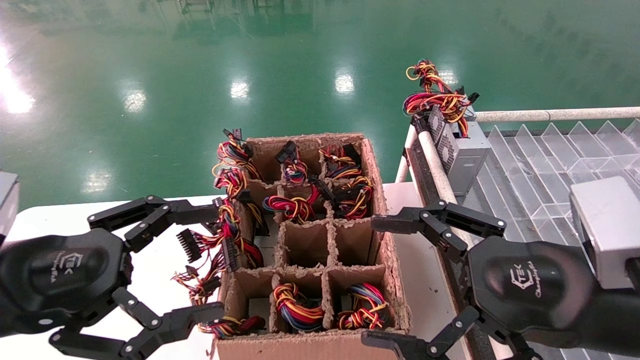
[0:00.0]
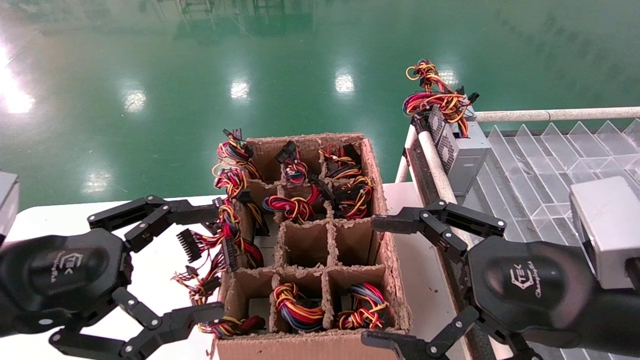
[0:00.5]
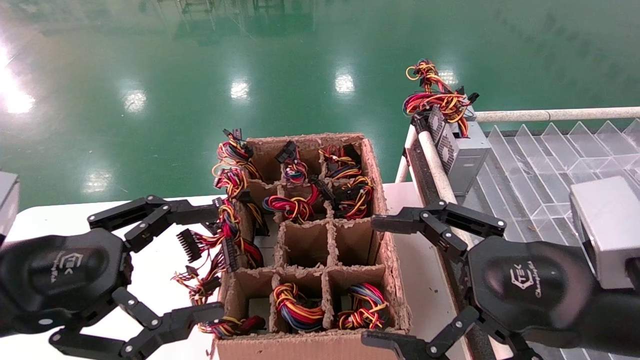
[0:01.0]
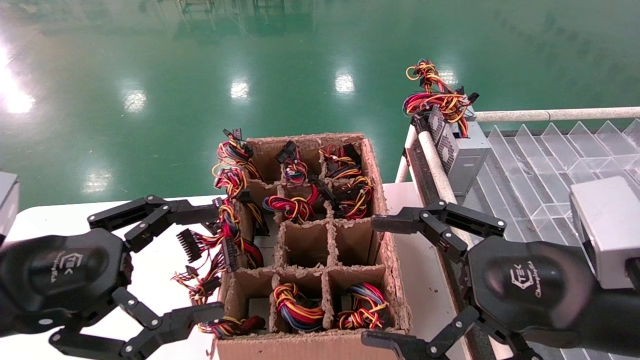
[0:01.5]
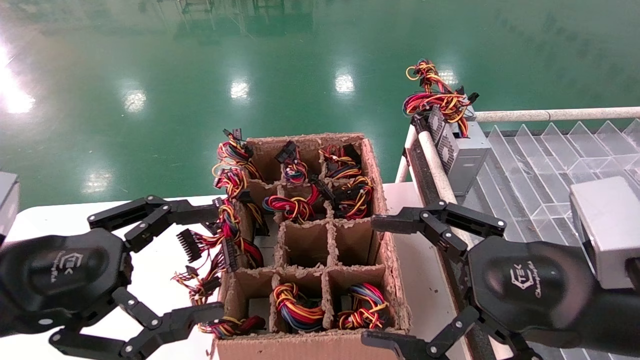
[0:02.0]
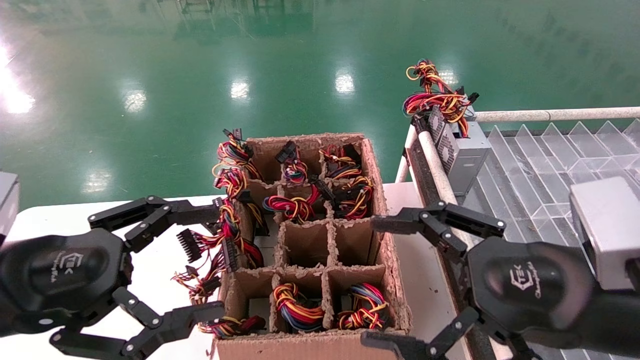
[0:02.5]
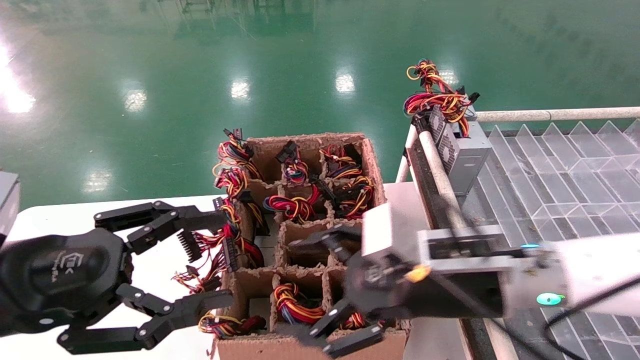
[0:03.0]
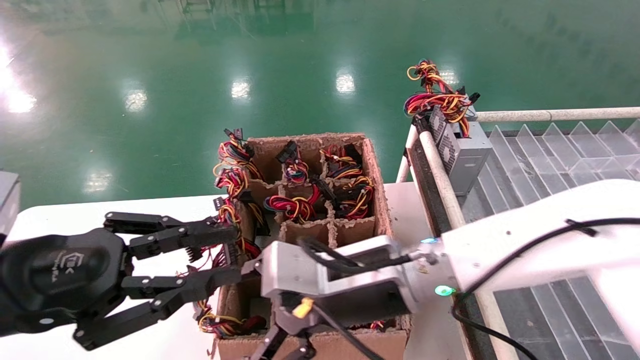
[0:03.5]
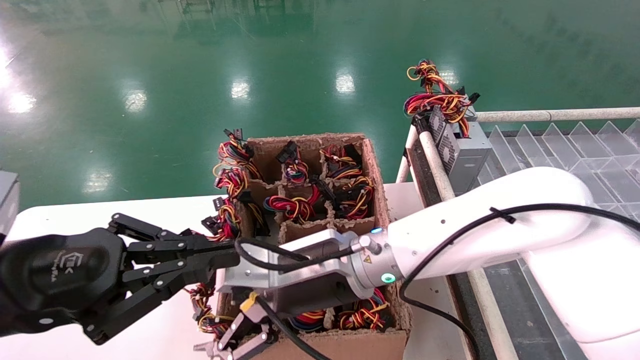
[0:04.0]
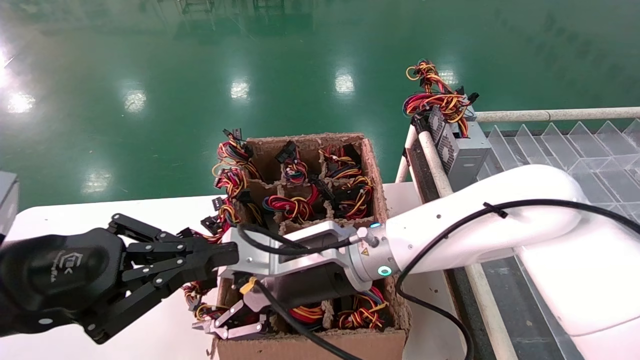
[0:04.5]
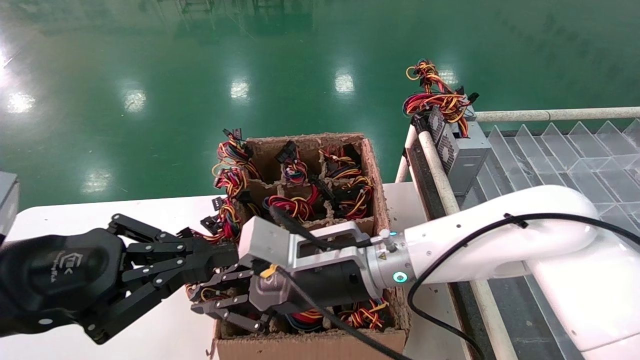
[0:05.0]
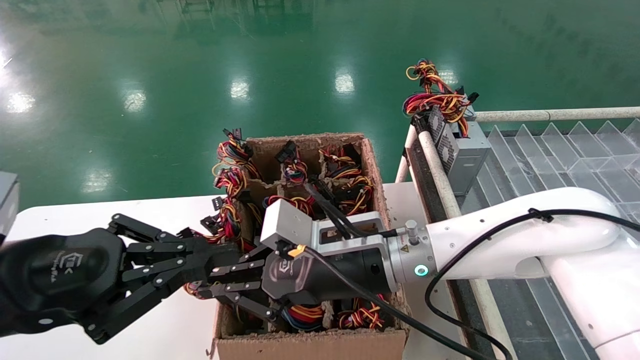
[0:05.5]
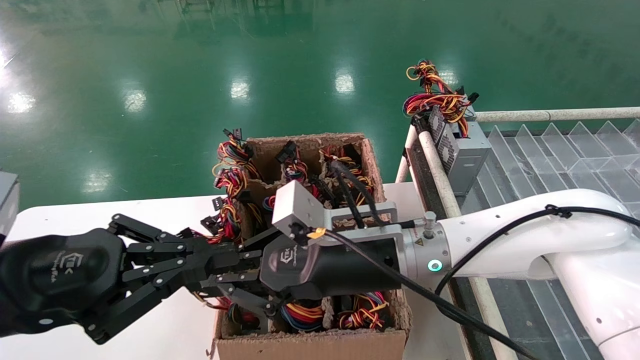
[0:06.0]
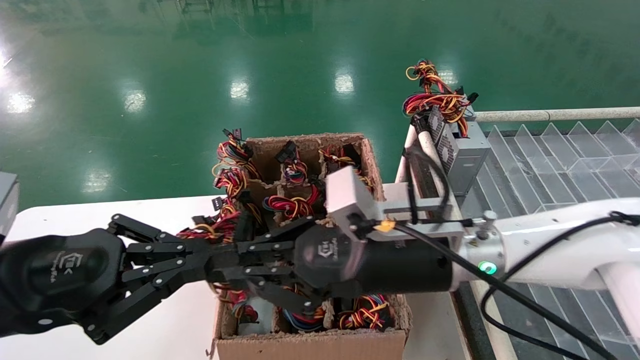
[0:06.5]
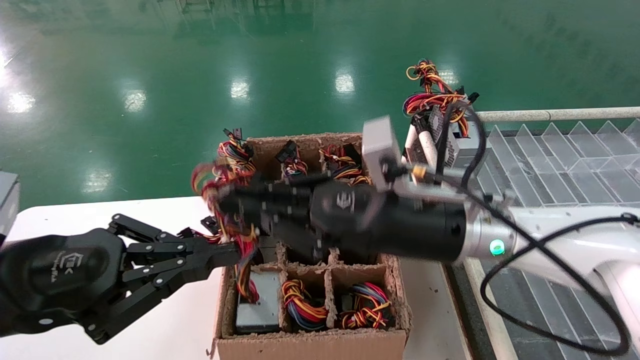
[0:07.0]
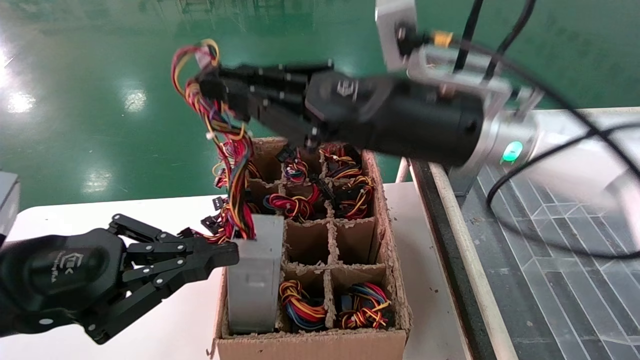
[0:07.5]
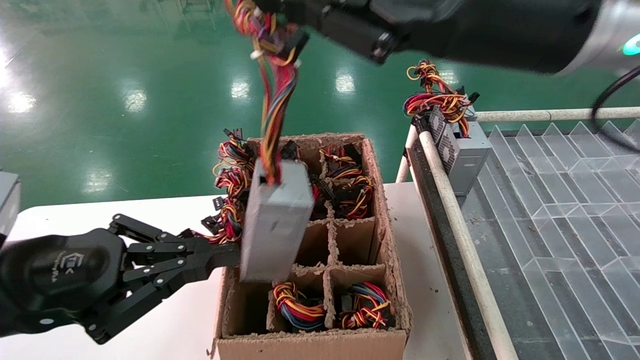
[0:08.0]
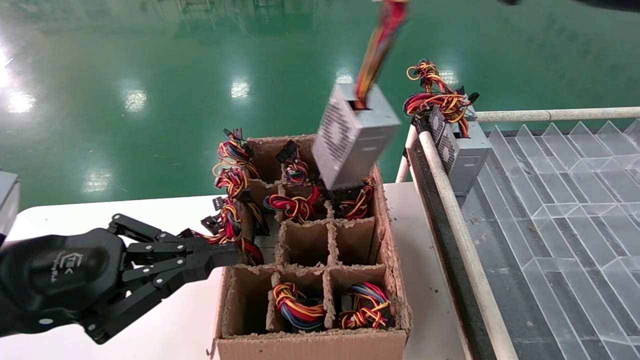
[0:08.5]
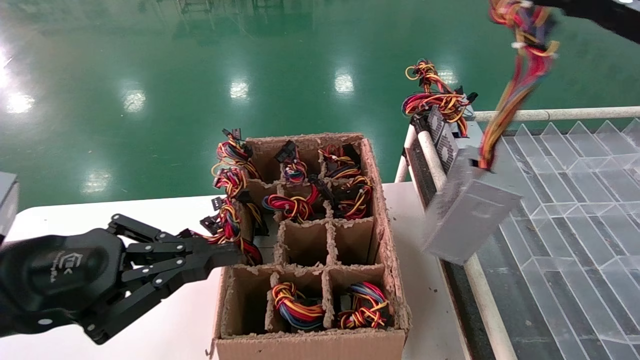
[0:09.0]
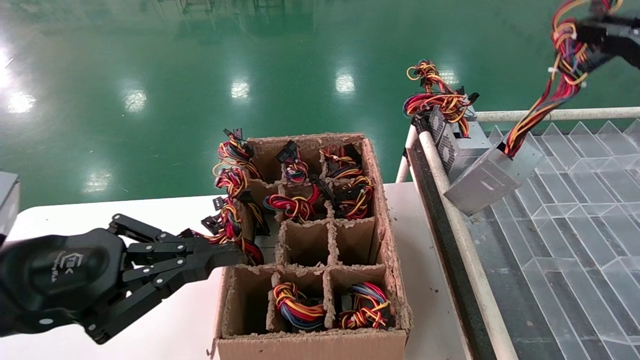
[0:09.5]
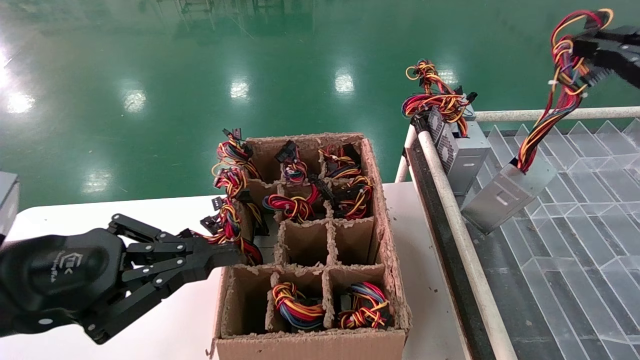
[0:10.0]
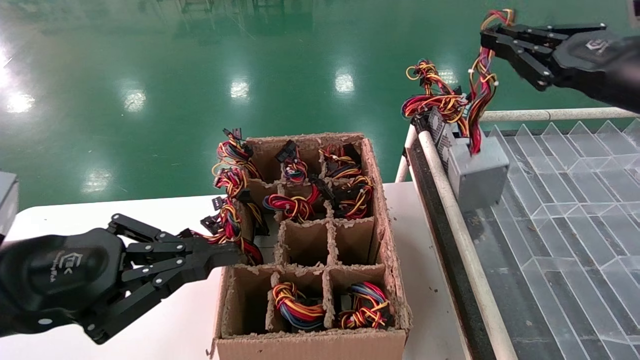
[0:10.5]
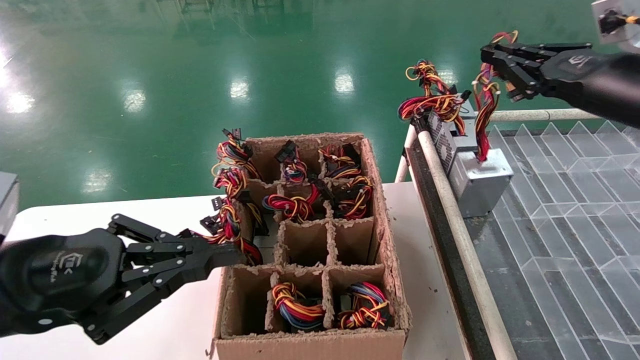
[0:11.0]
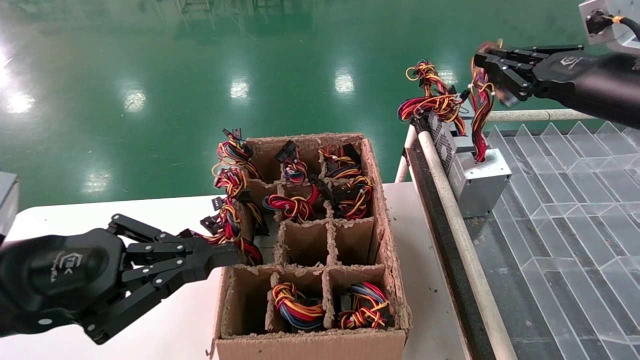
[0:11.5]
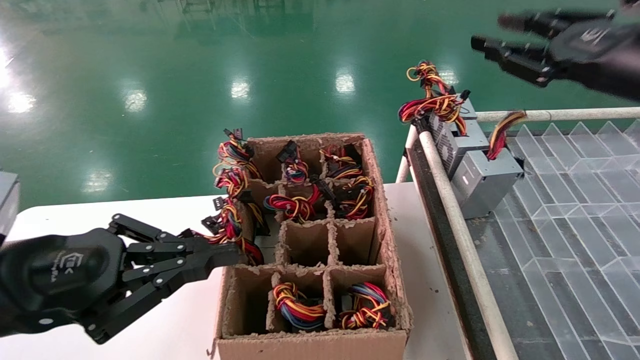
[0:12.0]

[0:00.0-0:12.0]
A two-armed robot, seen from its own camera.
Step, 0:03.0 to 0:05.0: Grab the main unit power supply from the containment box.
Step, 0:05.5 to 0:11.5: Place the main unit power supply in the designated area.
0:00.0 to 0:02.0: The two grippers keep their place.
0:02.0 to 0:04.0: The left gripper closes. Meanwhile the right gripper is displaced to the left and forward by about 25 cm.
0:04.0 to 0:06.0: The right gripper closes its fingers.
0:06.0 to 0:08.0: The right gripper heads upward and to the right, covering roughly 25 cm.
0:08.0 to 0:10.0: The right gripper travels to the right by approximately 25 cm.
0:10.0 to 0:12.0: The right gripper shifts some 10 cm forward and to the left.

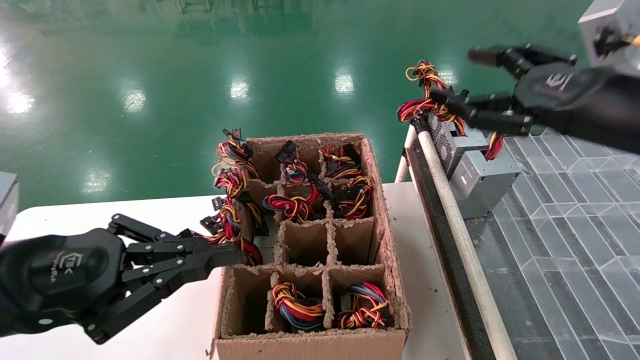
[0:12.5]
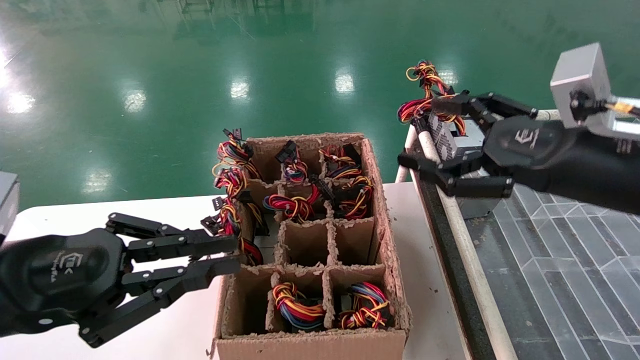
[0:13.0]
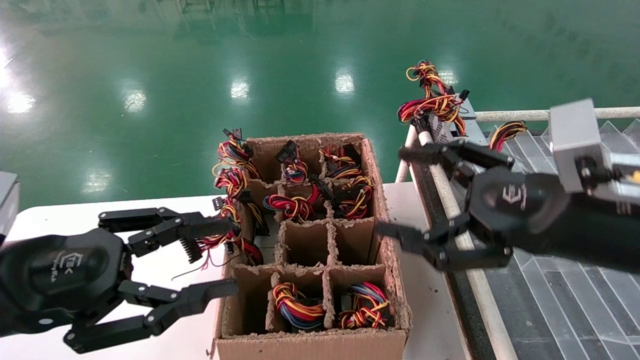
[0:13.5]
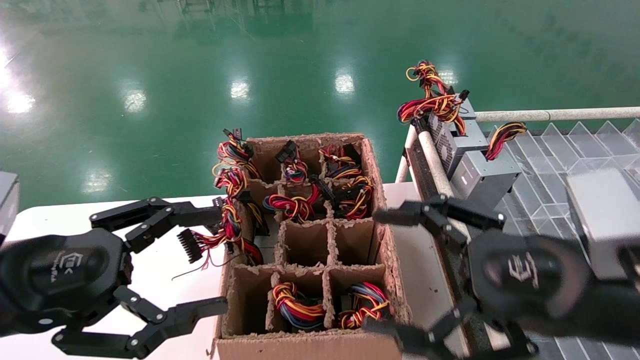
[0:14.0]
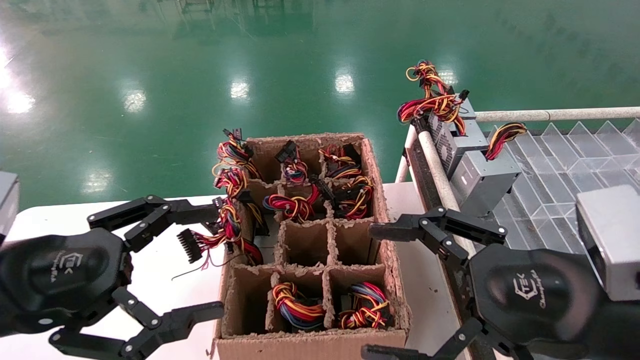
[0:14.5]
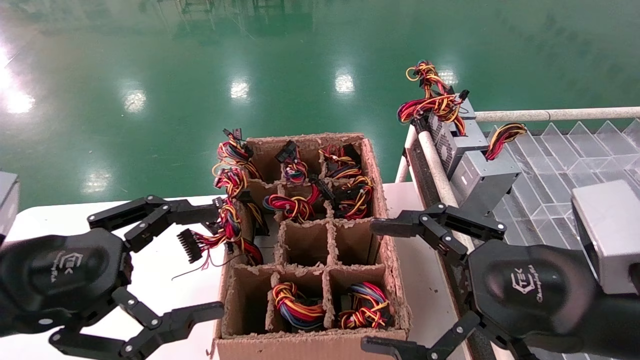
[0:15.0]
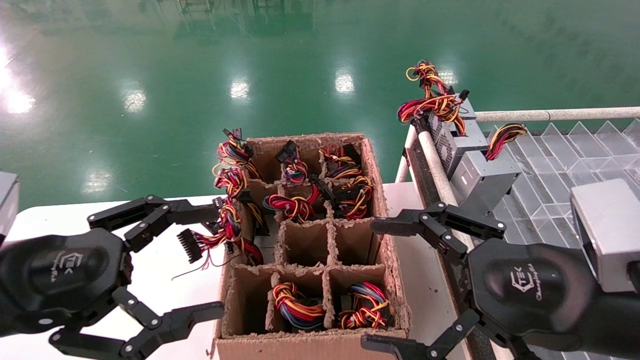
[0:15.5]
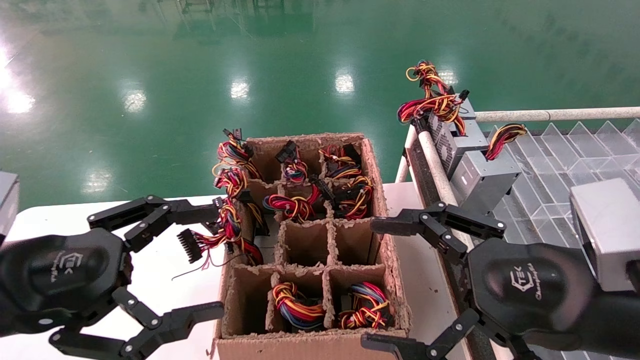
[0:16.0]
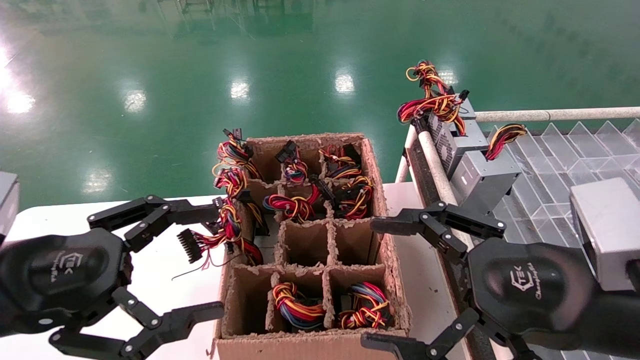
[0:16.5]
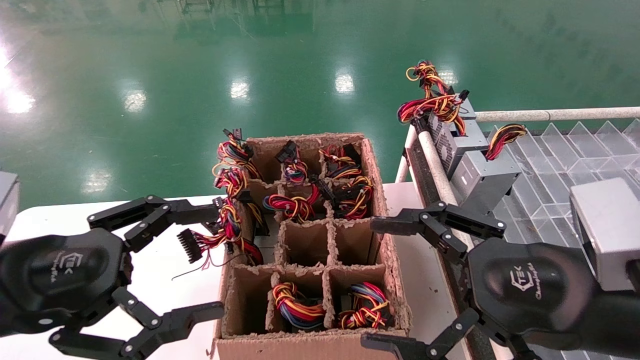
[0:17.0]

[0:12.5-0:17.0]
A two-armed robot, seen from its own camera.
0:12.5 to 0:14.5: The left gripper opens up. Meanwhile the right gripper goes roughly 15 cm downward, backward and to the left.
0:14.5 to 0:17.0: Neither gripper changes place.

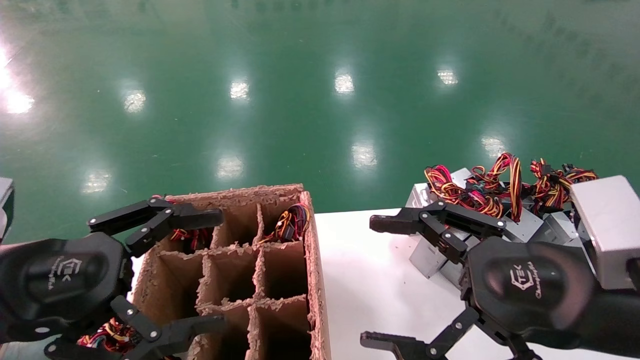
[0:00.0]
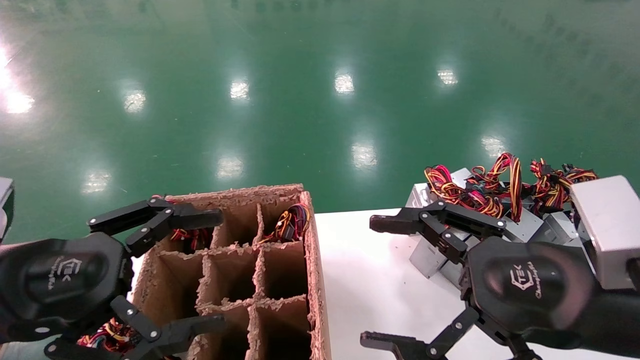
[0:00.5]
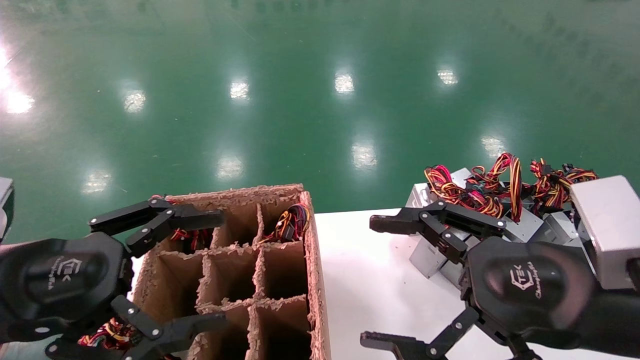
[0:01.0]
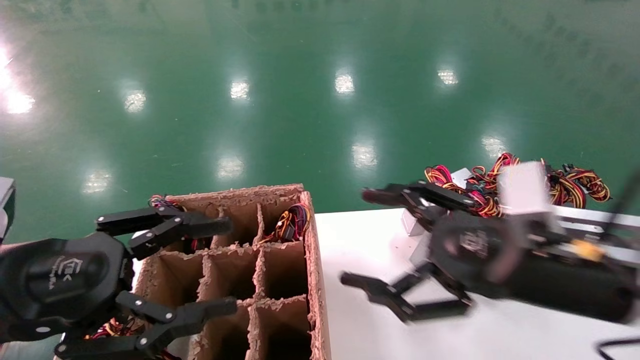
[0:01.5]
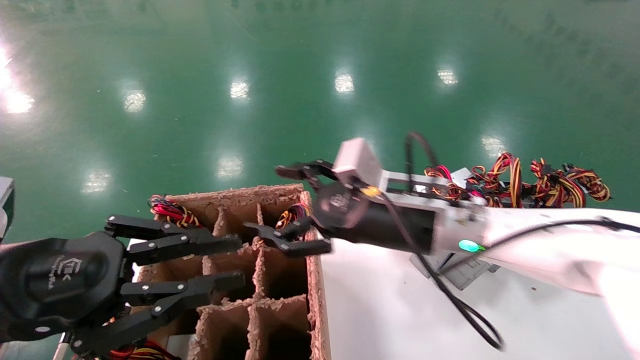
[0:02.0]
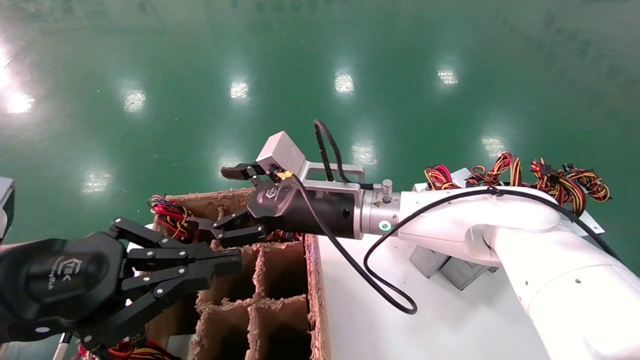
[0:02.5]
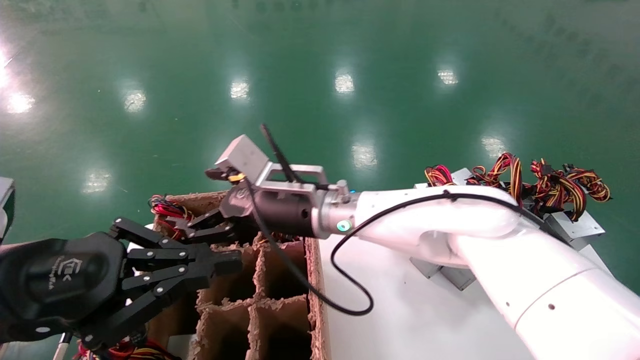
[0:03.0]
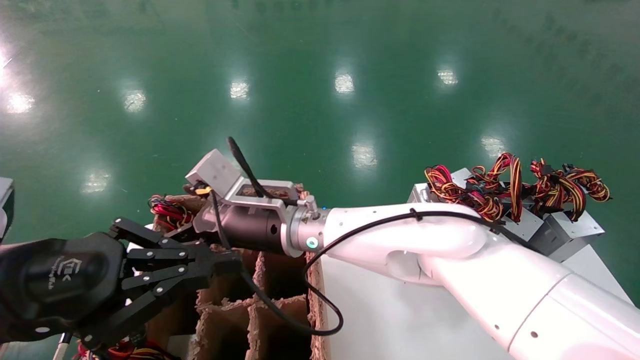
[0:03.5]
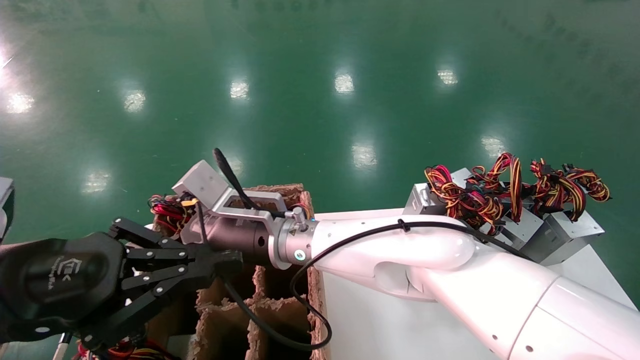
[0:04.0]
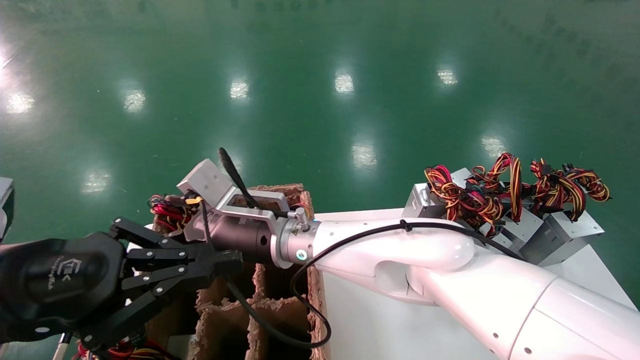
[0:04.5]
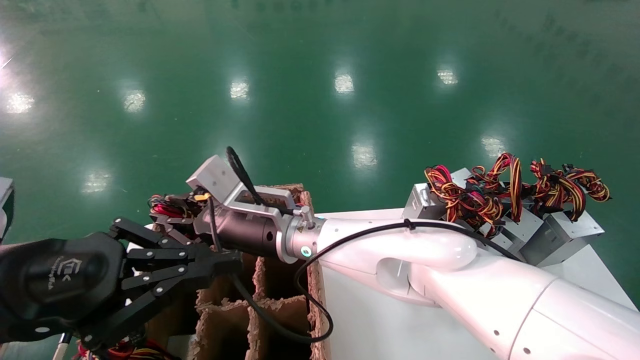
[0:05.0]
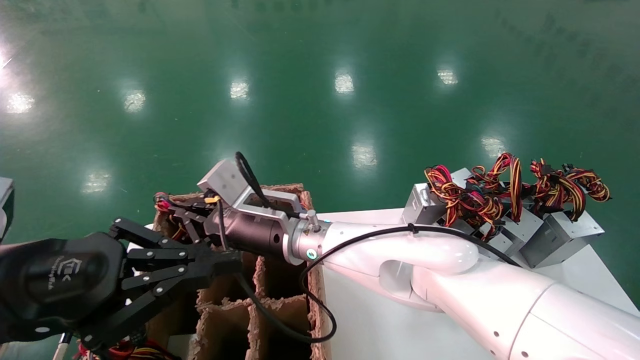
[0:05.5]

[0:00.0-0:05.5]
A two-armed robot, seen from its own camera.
Step, 0:02.0 to 0:05.5: Grab the main unit power supply from the containment box.
0:00.0 to 0:02.0: The right gripper heads forward and to the left, covering roughly 20 cm, while the left gripper closes up.
0:02.0 to 0:03.5: The right gripper heads to the left, covering roughly 15 cm, while the left gripper closes.
0:03.5 to 0:05.5: The right gripper closes.
